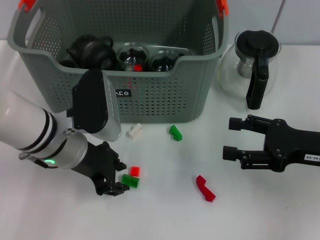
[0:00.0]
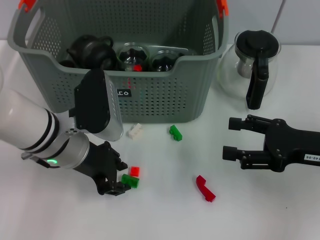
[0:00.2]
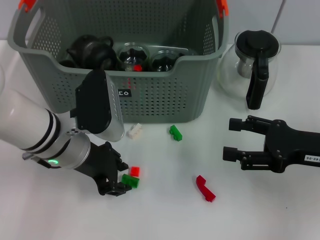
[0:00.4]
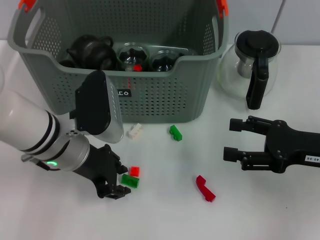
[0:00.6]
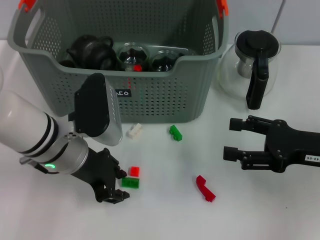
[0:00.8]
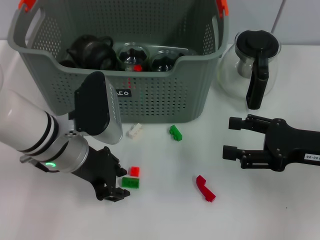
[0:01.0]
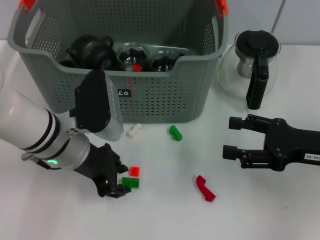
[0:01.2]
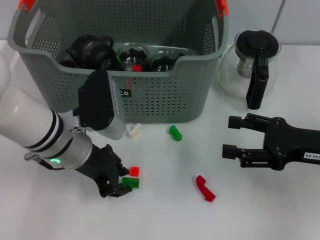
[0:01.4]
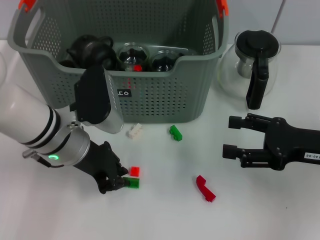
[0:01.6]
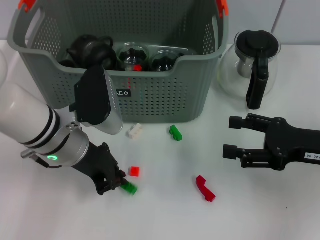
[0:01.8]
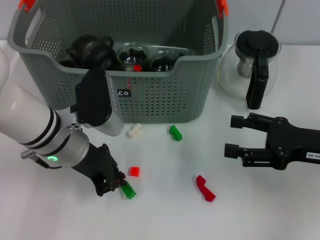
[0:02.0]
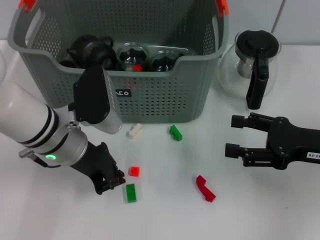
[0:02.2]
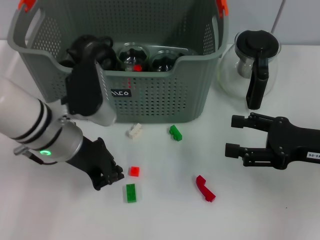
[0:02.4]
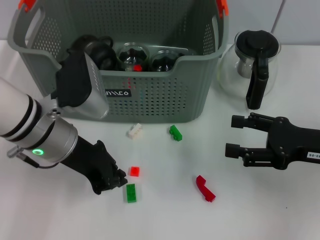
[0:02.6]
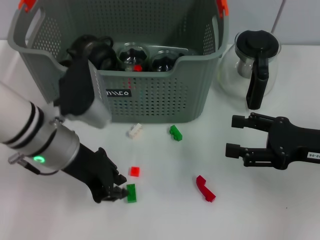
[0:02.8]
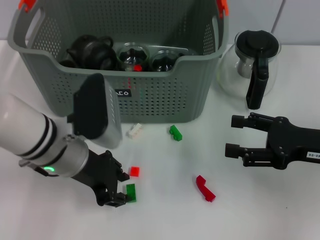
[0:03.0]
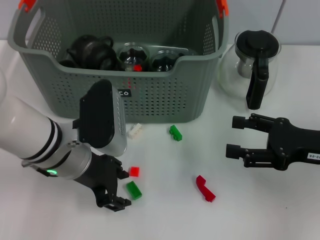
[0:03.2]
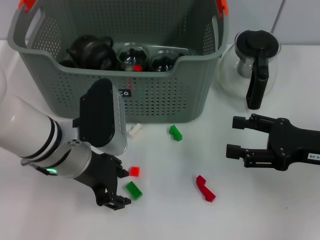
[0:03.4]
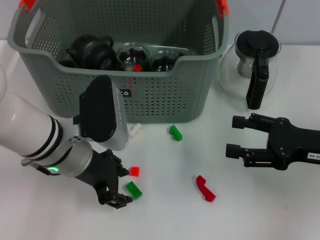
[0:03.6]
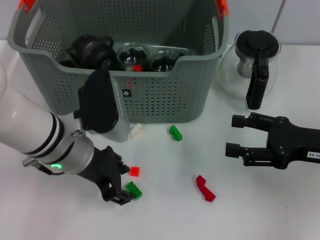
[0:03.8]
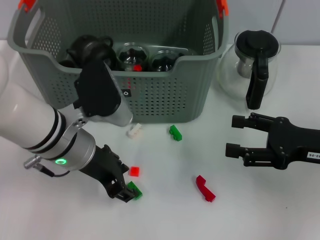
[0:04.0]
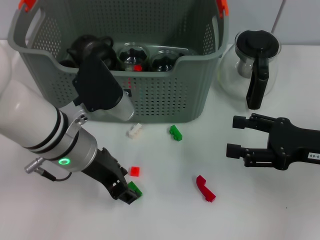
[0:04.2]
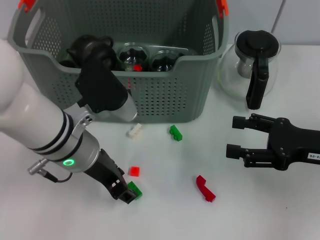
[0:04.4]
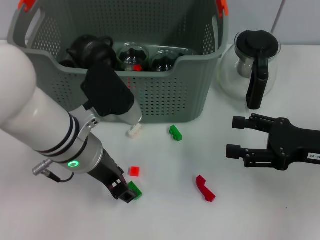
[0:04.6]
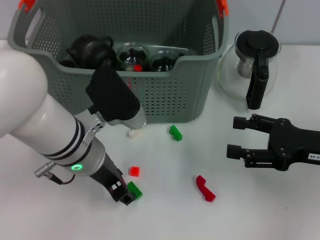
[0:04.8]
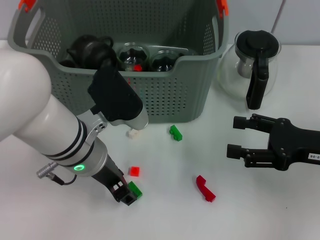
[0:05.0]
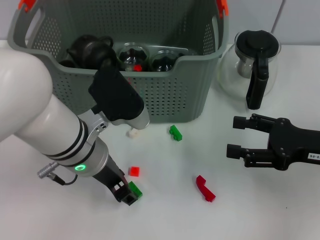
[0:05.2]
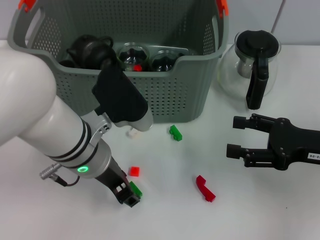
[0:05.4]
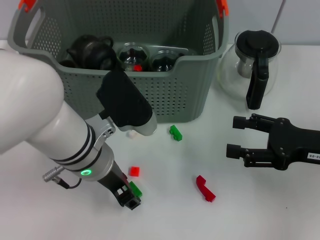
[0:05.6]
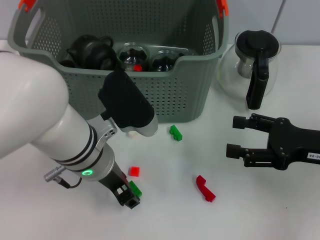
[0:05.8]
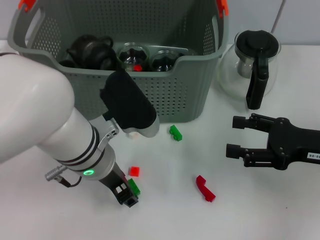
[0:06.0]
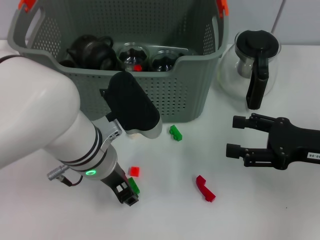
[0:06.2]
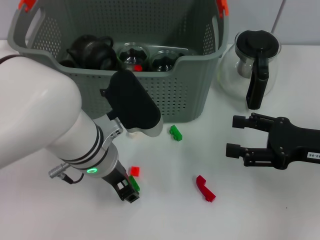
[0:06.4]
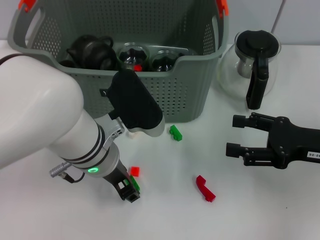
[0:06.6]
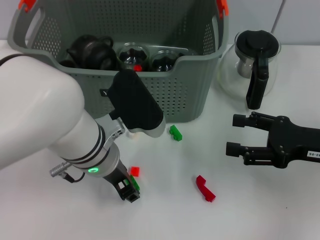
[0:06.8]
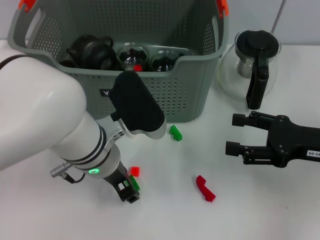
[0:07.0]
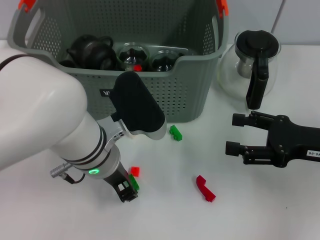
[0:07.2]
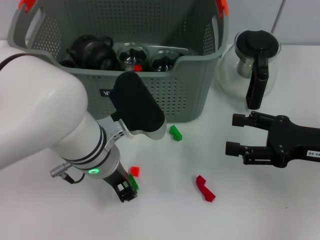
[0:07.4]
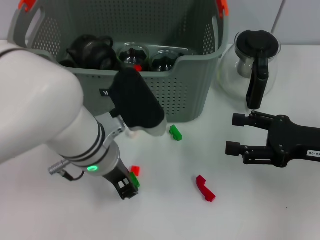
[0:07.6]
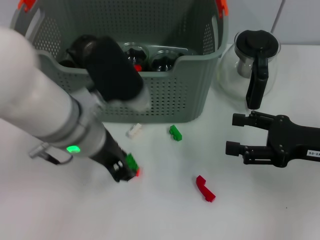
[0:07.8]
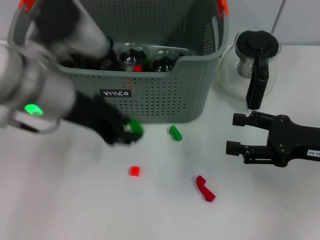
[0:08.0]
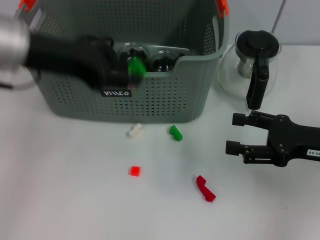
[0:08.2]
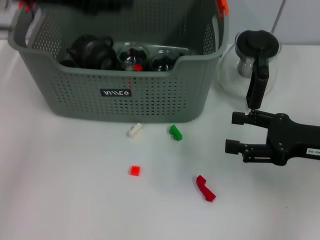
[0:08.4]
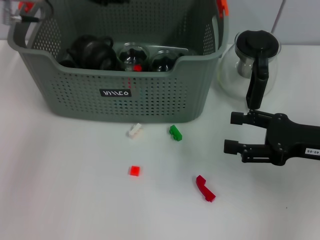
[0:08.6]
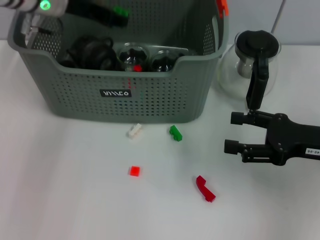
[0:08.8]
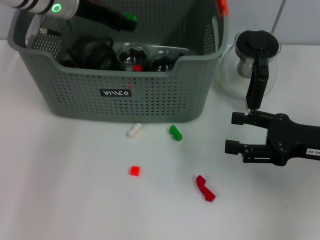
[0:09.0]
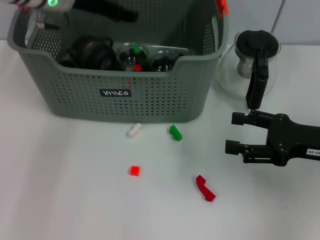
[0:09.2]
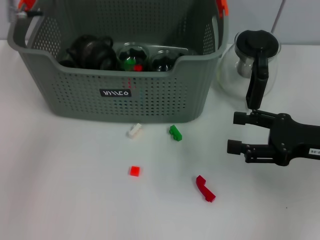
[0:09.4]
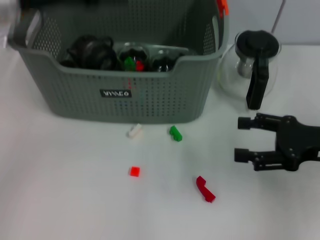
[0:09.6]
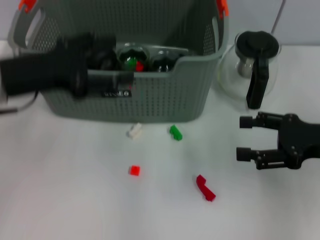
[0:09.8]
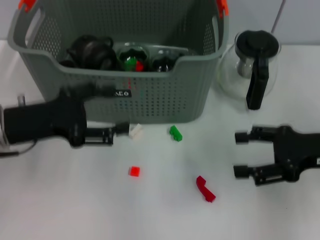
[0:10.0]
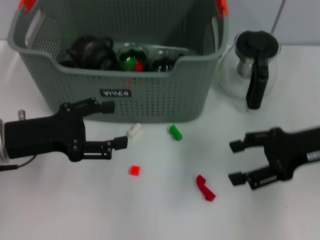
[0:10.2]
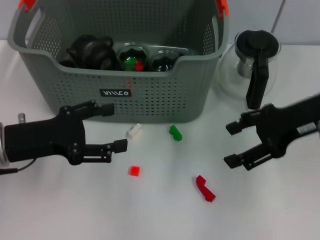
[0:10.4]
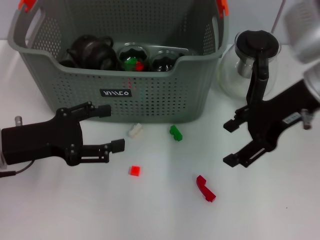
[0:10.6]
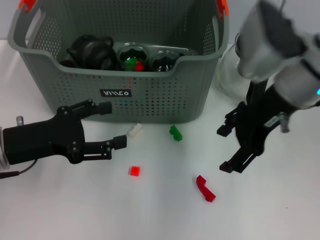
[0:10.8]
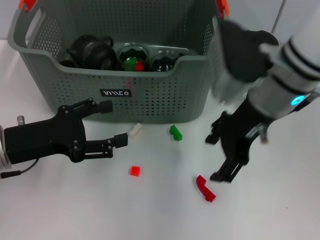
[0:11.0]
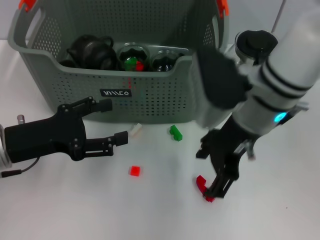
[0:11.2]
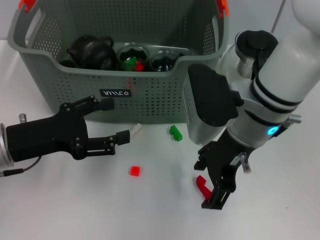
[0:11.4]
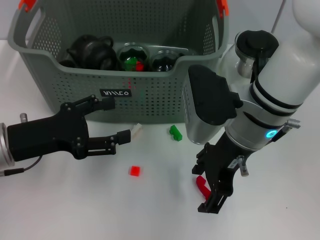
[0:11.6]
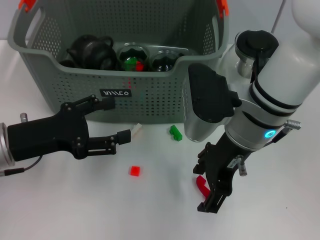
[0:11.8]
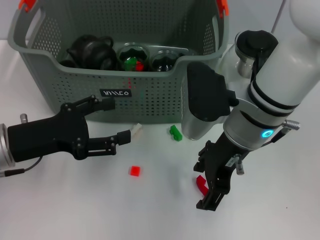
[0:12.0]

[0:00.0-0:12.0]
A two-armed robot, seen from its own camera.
Task of the whole recording: pick up the teacup on the table and place it into the storage bin, pick up the block on the table and place it into the storage bin.
Step, 0:00.0 to 0:07.0: Grasp the green block with left gripper.
Step, 0:07.4 to 0:09.2: Place the green block in the storage box with left gripper.
0:00.0 to 0:01.6: Neither gripper changes place.
0:01.6 to 0:03.0: The grippers move only a little.
0:03.0 to 0:04.4: The left gripper opens its fingers.
0:04.4 to 0:06.0: The grippers stay close to where they were, moving slightly.
0:06.0 to 0:07.6: Both grippers stay about where they are.
0:07.6 to 0:09.0: The left gripper is displaced forward, upward and to the left by about 20 cm.
0:09.0 to 0:10.4: The left gripper is displaced backward, downward and to the left by some 25 cm, and opens up. The right gripper is displaced upward and forward by roughly 10 cm.
0:10.4 to 0:12.0: The right gripper is displaced to the left by roughly 15 cm.

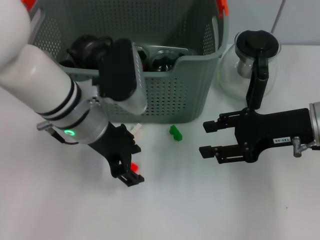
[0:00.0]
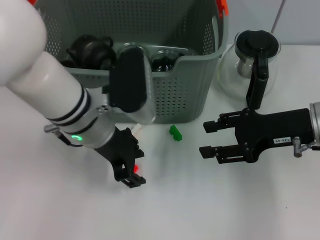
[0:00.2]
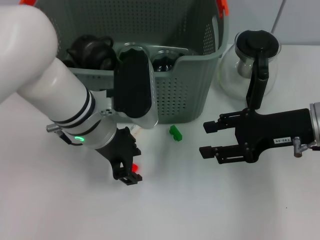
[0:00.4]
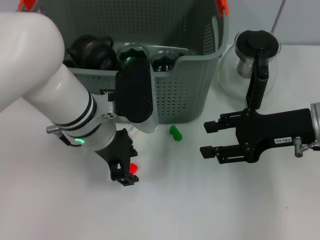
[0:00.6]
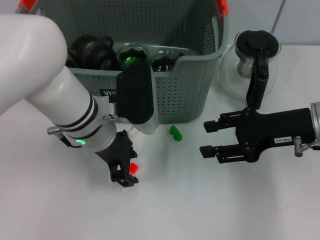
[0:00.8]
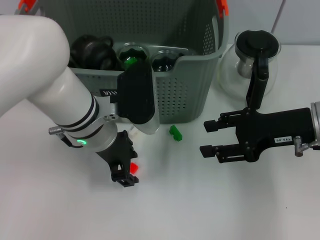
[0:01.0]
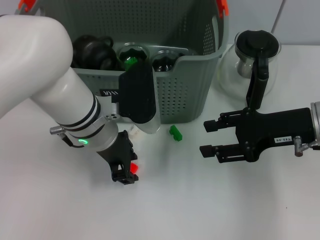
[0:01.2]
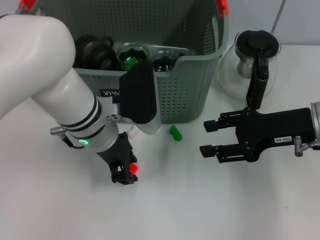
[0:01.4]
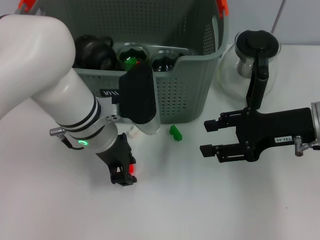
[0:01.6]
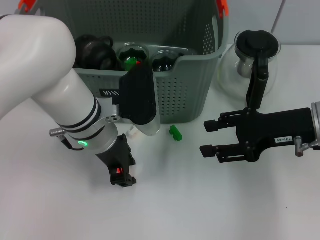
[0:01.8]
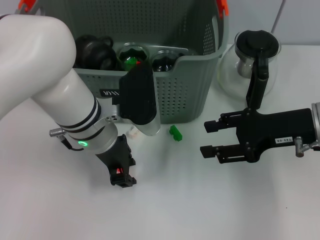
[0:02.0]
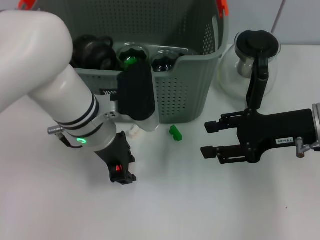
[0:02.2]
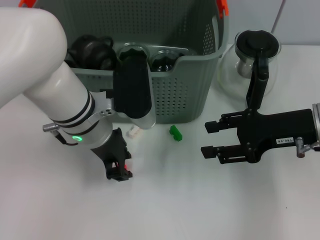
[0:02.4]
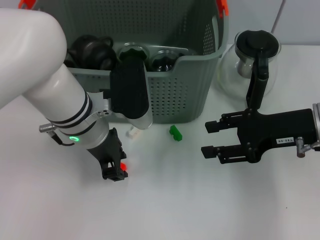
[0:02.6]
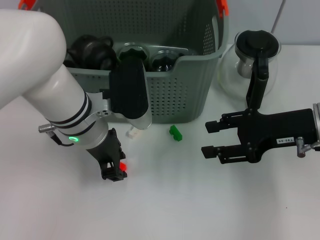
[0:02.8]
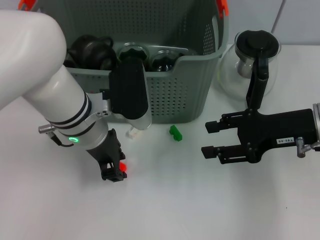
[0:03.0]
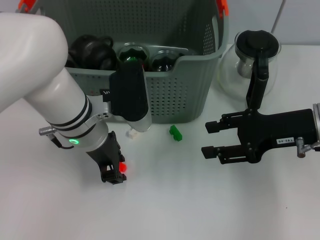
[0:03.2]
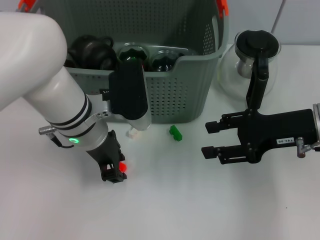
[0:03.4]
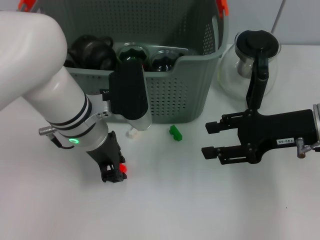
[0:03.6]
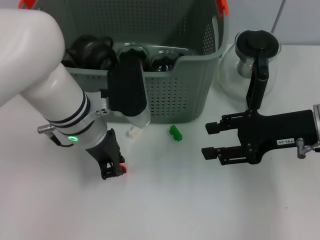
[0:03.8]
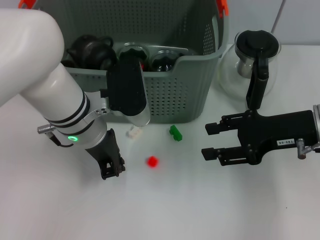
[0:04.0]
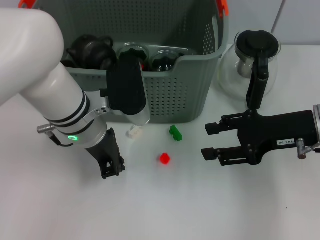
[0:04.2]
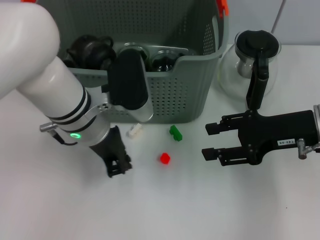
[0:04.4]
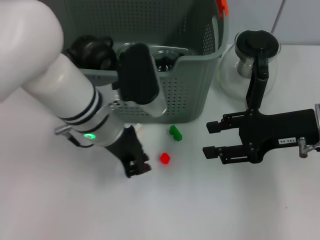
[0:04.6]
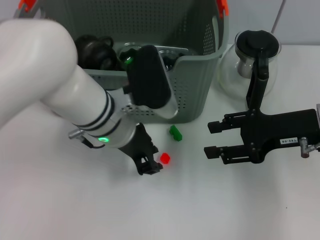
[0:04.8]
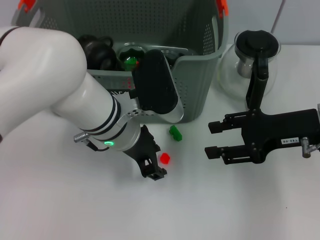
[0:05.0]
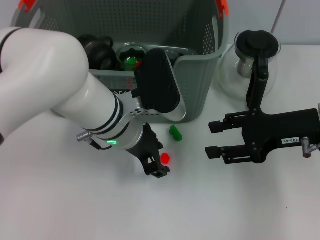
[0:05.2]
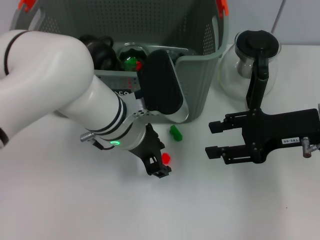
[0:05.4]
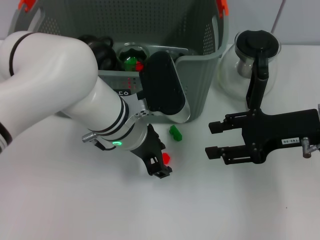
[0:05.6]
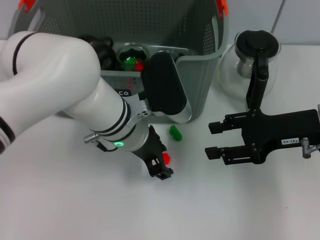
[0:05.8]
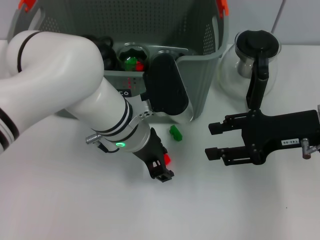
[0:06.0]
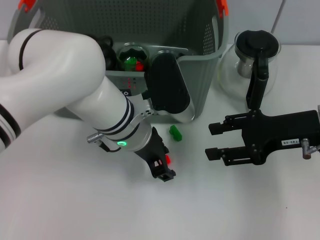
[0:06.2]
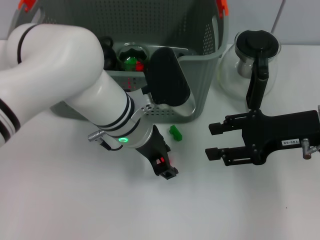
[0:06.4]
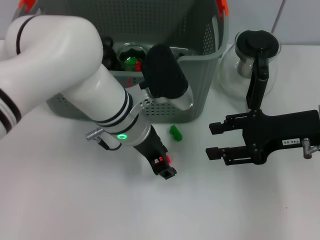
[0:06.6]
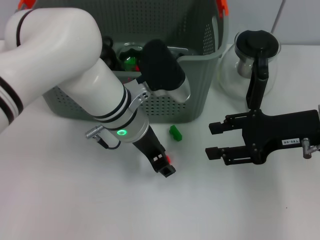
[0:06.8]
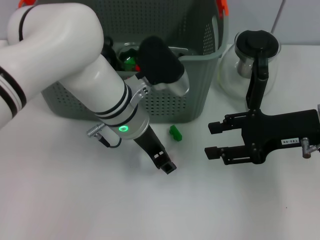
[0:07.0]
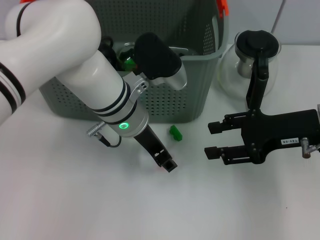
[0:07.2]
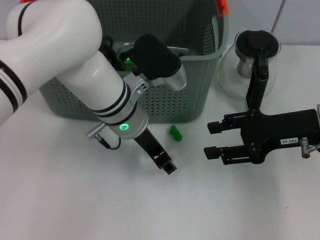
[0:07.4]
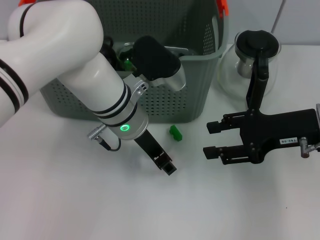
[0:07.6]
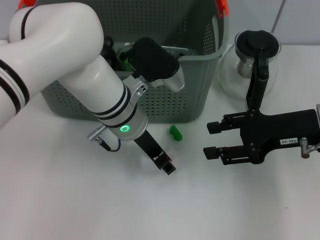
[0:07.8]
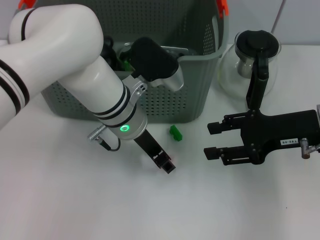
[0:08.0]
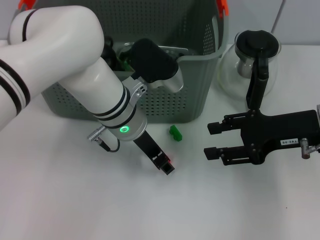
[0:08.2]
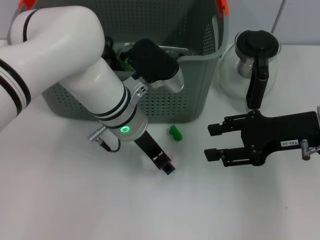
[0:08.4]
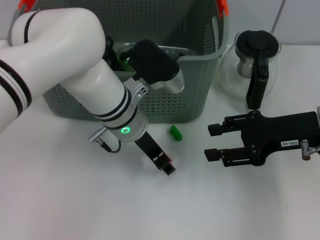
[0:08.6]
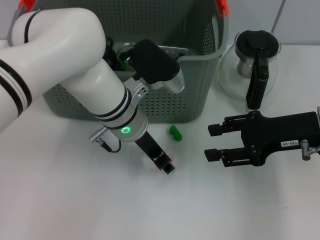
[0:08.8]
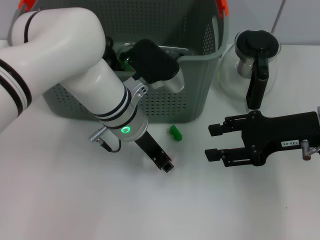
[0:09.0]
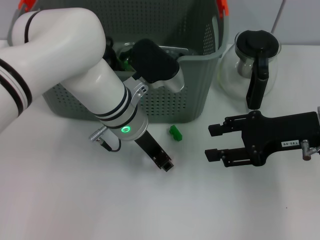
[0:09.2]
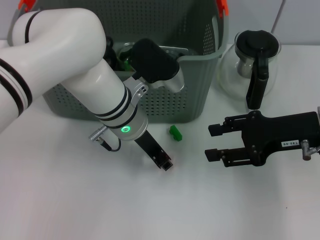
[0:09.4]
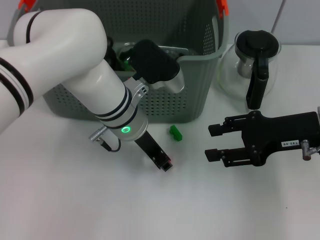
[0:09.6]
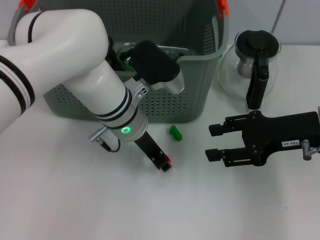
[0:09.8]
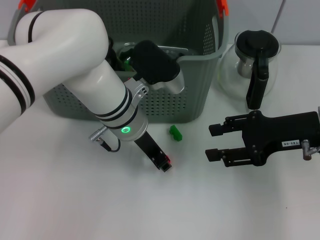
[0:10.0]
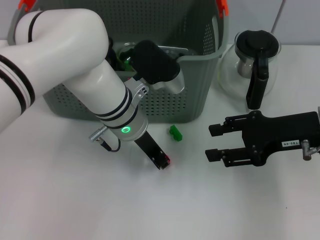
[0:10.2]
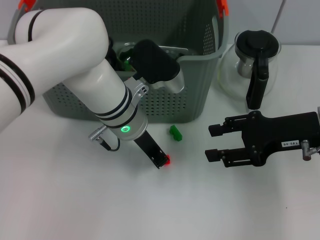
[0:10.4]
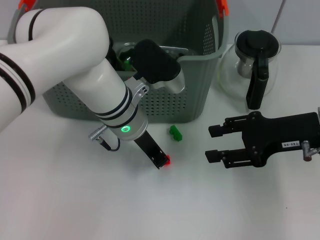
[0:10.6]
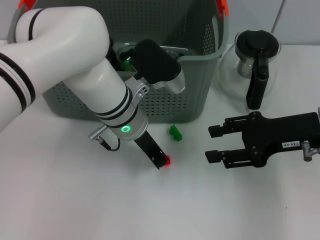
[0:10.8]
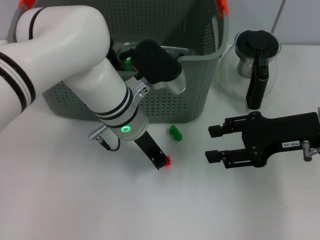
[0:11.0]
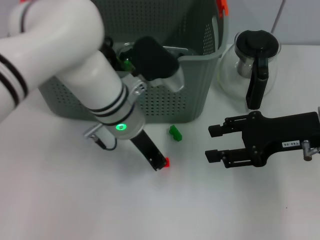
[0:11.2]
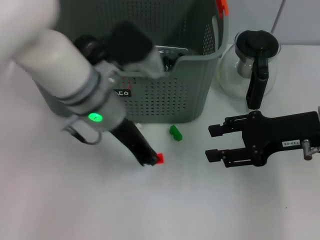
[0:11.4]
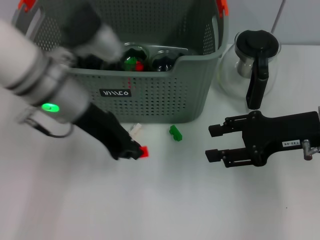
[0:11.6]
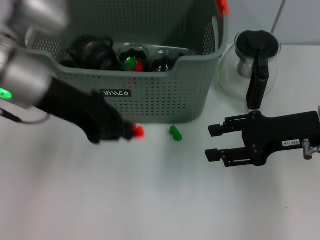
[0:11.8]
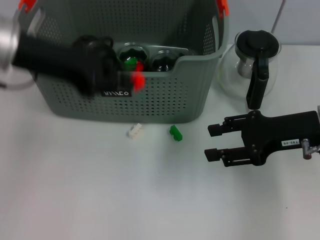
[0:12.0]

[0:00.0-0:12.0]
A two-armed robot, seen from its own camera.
Task of the whole recording: pick up the teacup on the table and place it into the storage bin, pick up the block on the table and place it into the storage bin.
Step, 0:00.0 to 0:10.4: Grasp the orange block with left gripper.
0:00.0 to 0:01.6: There are only small adjustments of the grippers.
0:01.6 to 0:03.0: Both grippers stay about where they are.
0:03.0 to 0:04.4: The two grippers keep their place.
0:04.4 to 0:06.0: The left gripper moves to the right, about 5 cm, and opens.
0:07.6 to 0:09.0: Both grippers stay about where they are.
0:09.0 to 0:10.4: The left gripper closes its fingers.
0:10.4 to 0:12.0: The left gripper heads to the left and upward, covering roughly 20 cm.
